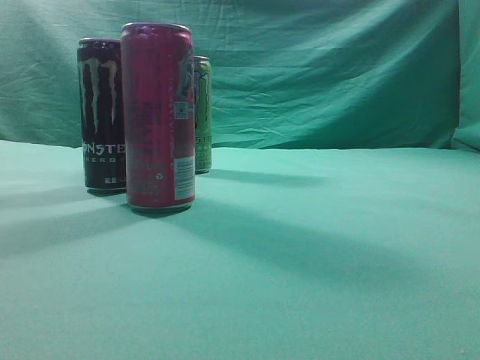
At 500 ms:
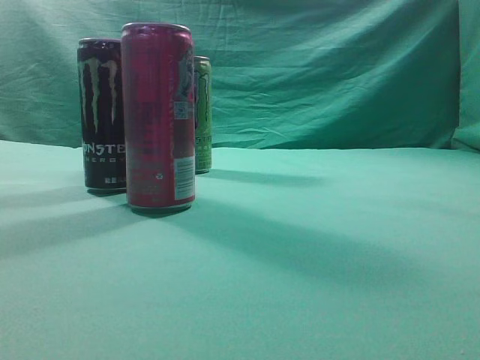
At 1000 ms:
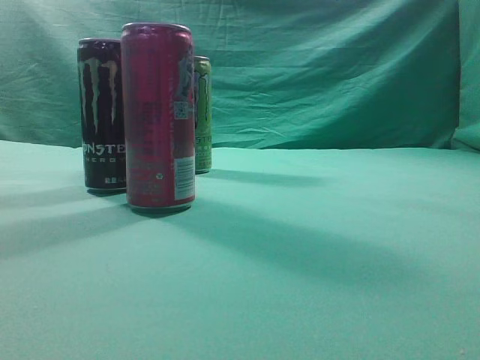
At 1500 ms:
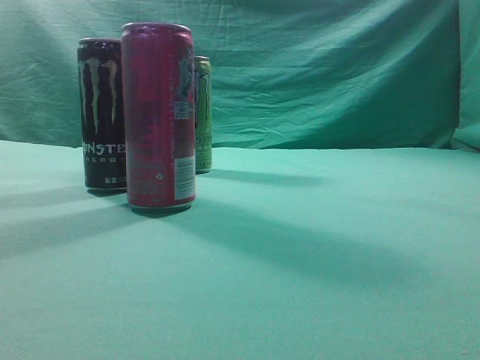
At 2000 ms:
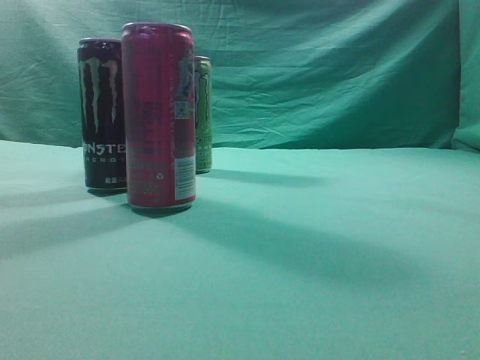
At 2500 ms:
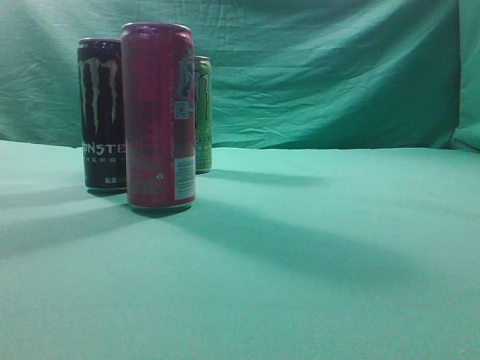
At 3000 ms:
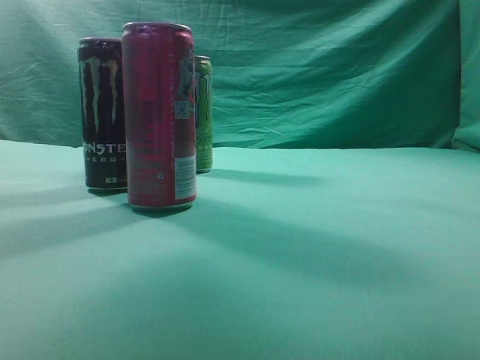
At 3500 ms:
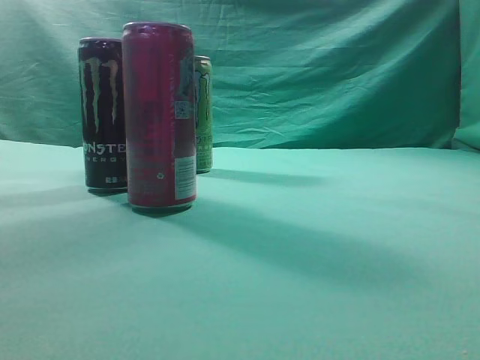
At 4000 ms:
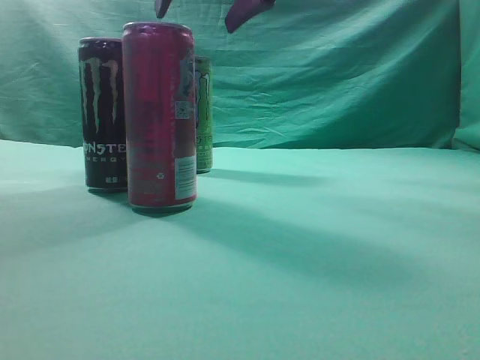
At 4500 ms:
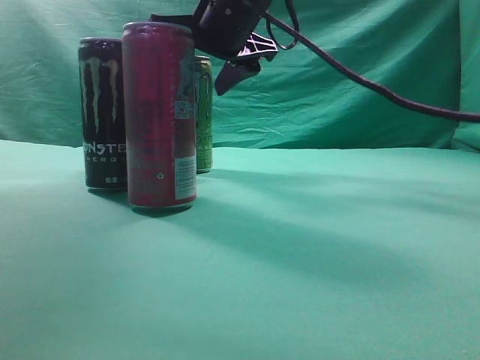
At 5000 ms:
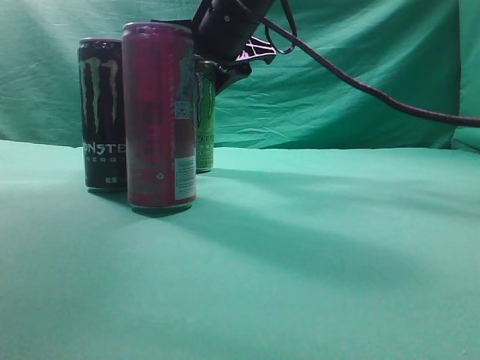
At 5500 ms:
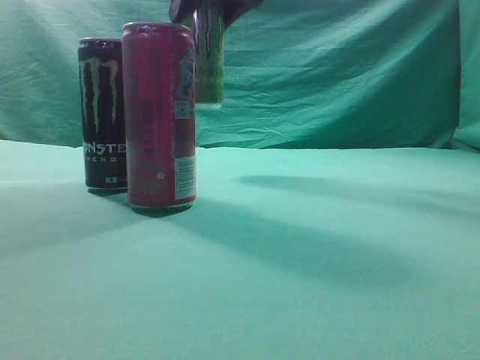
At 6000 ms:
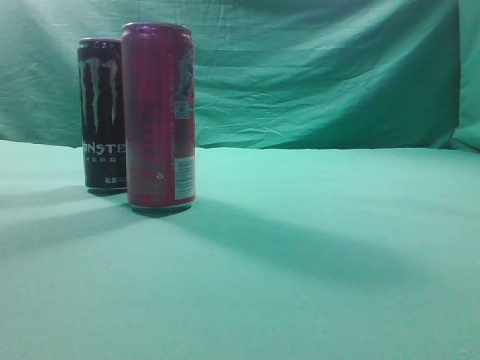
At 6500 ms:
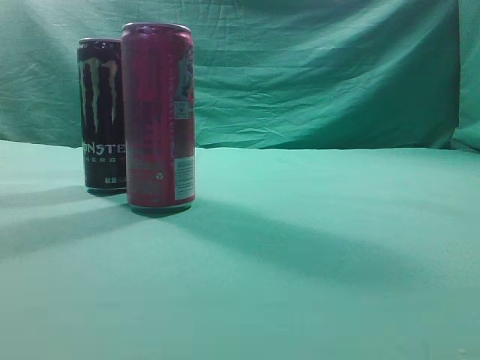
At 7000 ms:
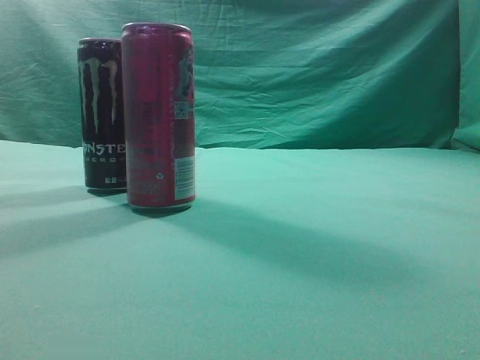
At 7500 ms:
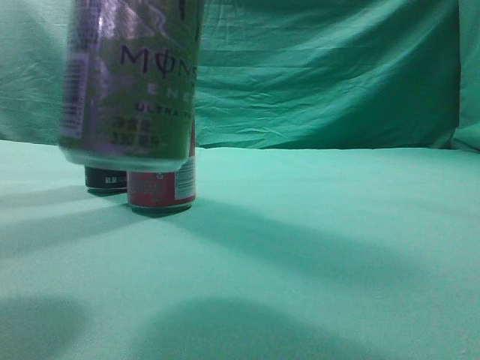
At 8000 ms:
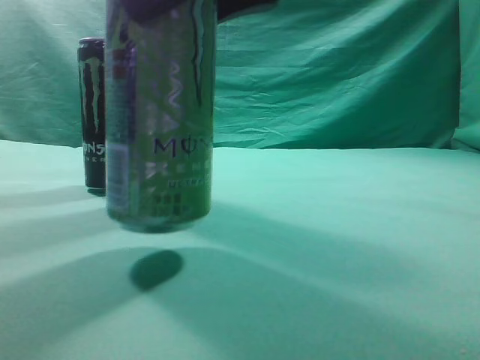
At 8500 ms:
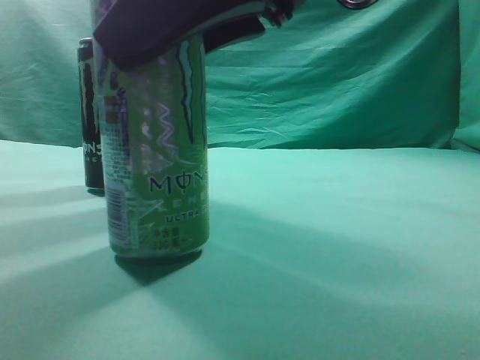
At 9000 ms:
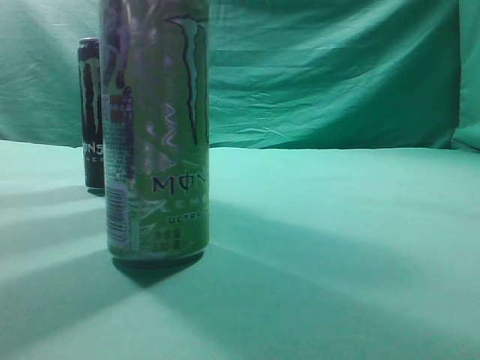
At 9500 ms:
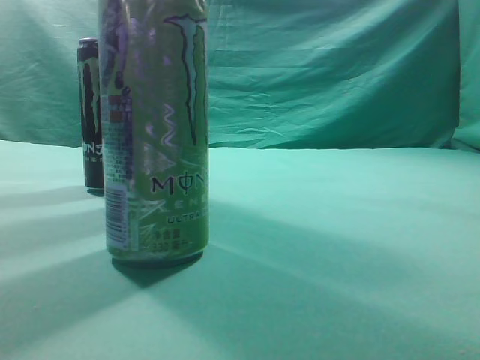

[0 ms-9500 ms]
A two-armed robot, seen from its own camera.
Task of the whole recording: move one drink among three beverages.
Step, 0 ms to 5000 ms: Grasp the beverage bottle placed at the back of the desk.
Step, 5500 ms to 9000 ms: Place the beverage bottle to the front of the table.
4000 ms to 5500 ms: The right gripper reaches approximately 5 cm downward, then returns.
5500 ms to 7500 ms: The right gripper is displaced backward by some 20 cm.
7500 ms to 9500 ms: The right gripper heads upward, backward and to the right, covering some 15 cm, and closes up.
